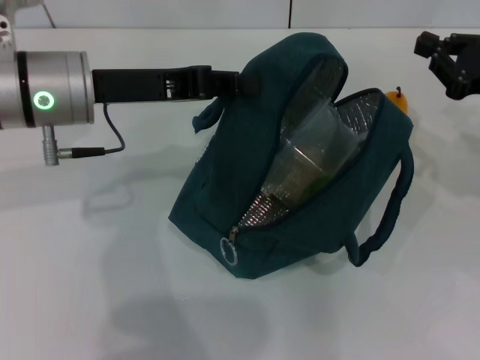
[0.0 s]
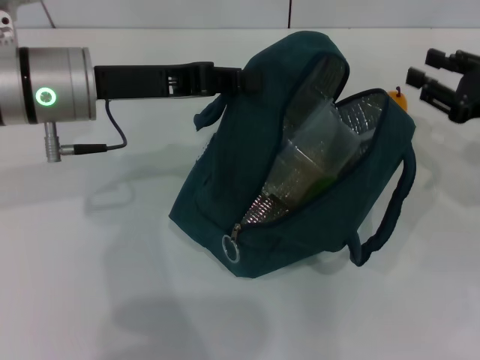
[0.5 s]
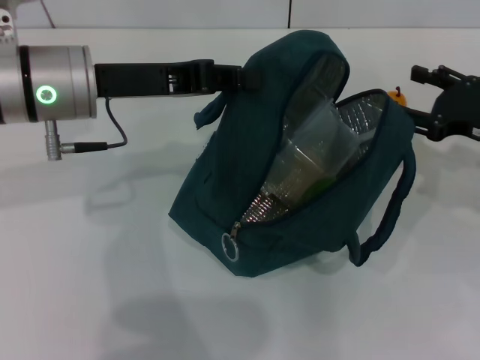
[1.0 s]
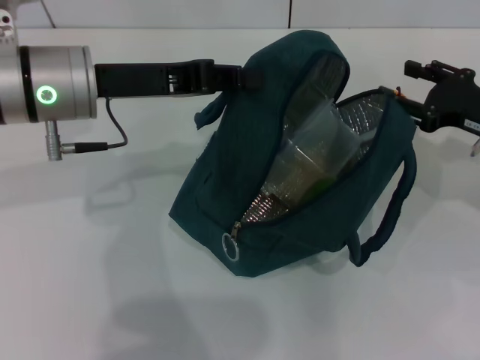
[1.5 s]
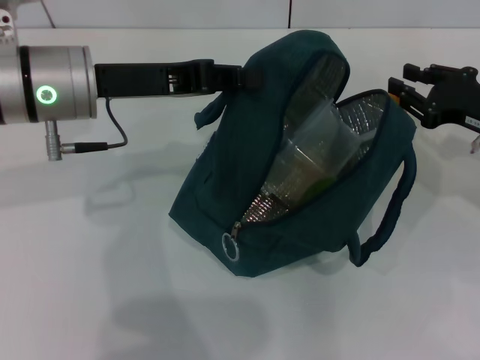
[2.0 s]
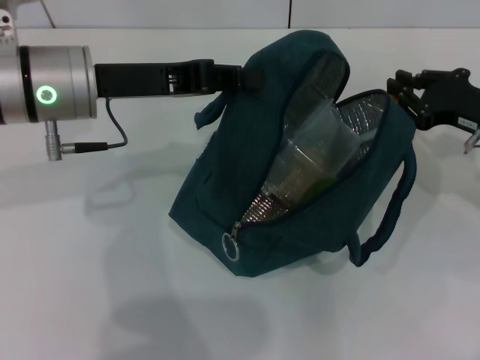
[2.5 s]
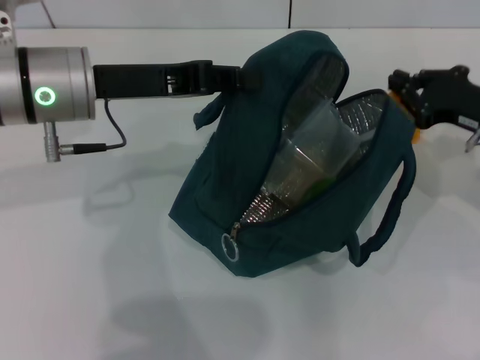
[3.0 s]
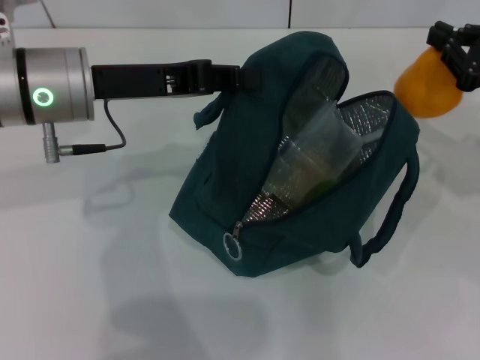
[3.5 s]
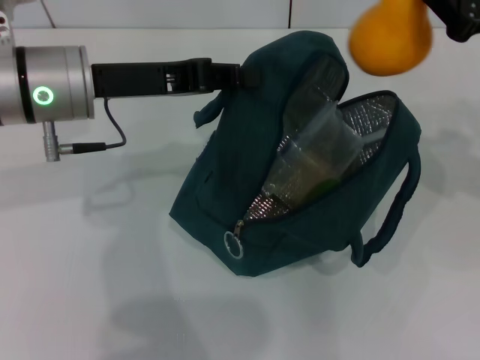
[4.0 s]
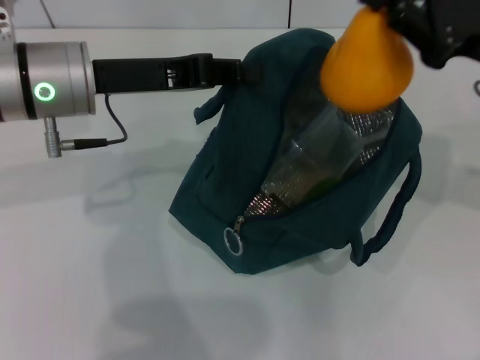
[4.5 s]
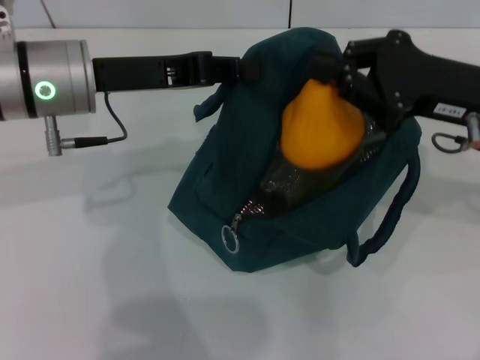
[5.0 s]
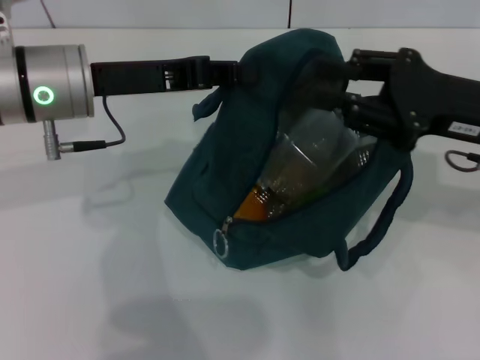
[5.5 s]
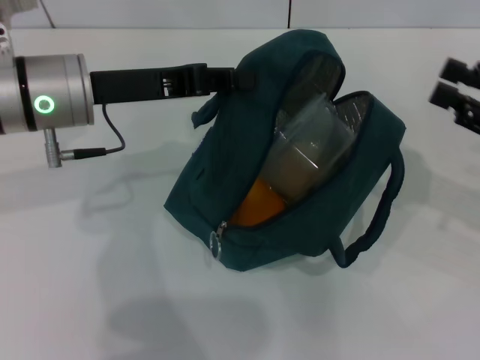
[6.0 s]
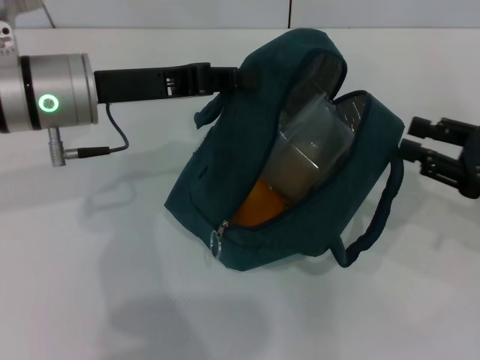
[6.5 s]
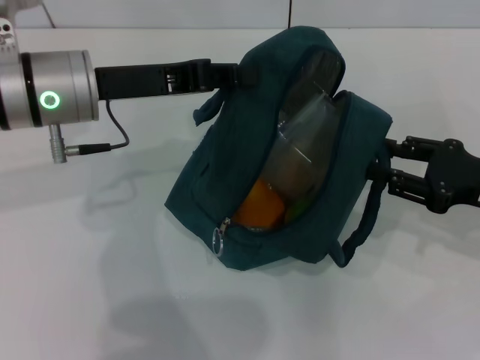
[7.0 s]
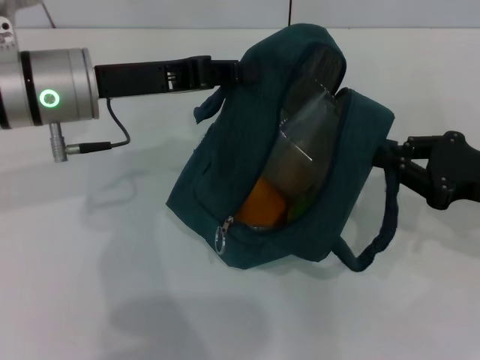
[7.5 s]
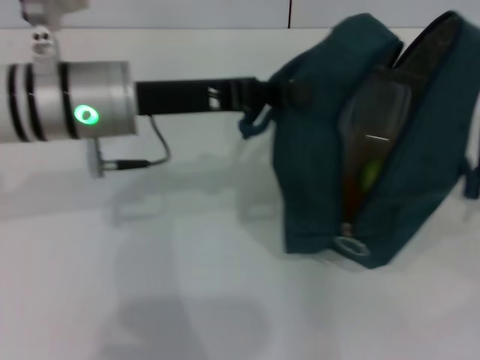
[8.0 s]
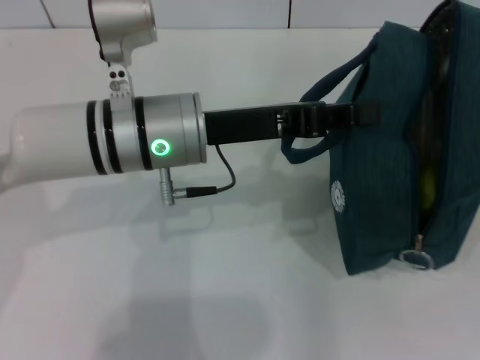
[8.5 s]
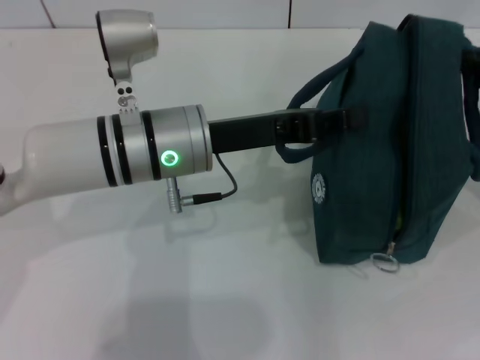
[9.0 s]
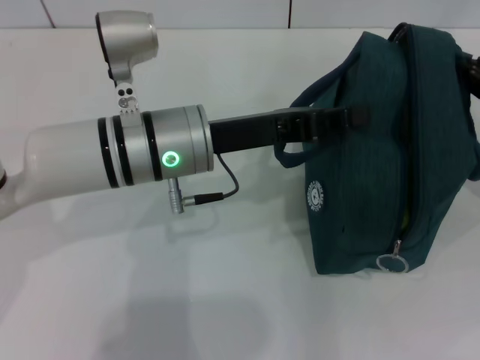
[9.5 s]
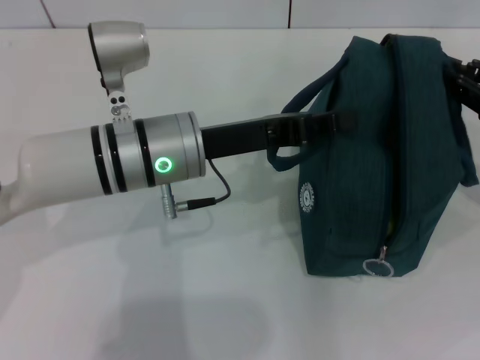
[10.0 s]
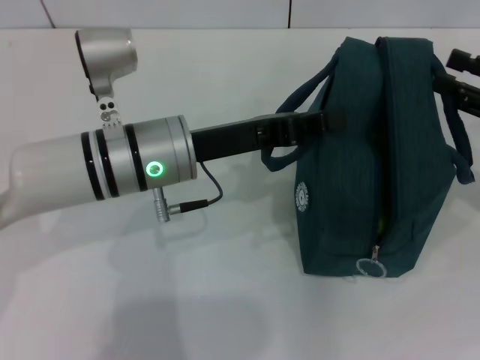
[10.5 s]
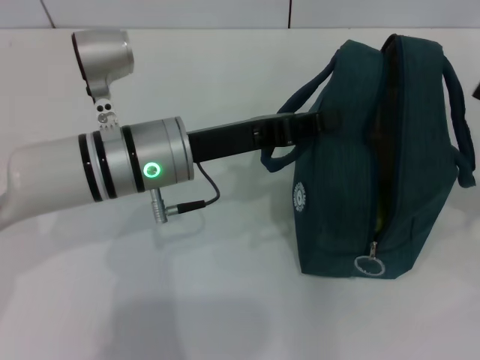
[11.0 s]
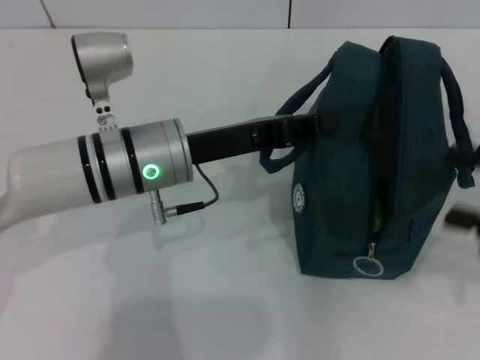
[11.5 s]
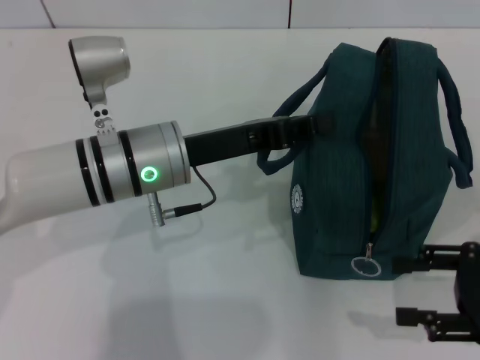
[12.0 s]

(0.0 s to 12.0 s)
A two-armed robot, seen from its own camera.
Step, 0.0 s - 2.5 s: Grab the pear with your right hand.
Step, 6.0 s - 10.0 s: Hold the lunch bag with your right hand.
0.0 s - 2.0 s: The right gripper opens its fingers.
2.0 s - 4.0 s: The right gripper travels upward by approximately 10 cm, and closes up.
4.0 s - 6.0 s: The right gripper is displaced downward and backward by about 10 cm, and opens its fingers.
6.0 s - 8.0 s: The right gripper closes up.
8.0 s - 10.0 s: The left gripper moves downward, about 5 cm.
10.0 s - 12.0 s: The right gripper moves backward, about 10 cm, and opens up.

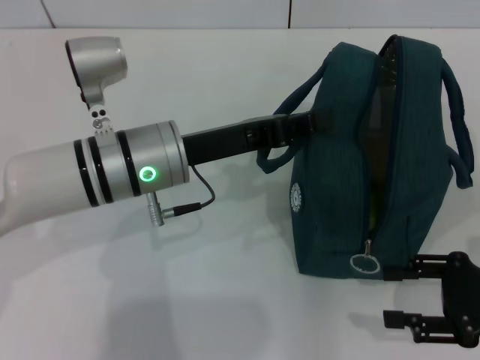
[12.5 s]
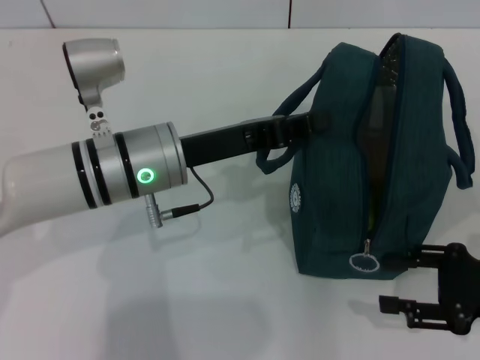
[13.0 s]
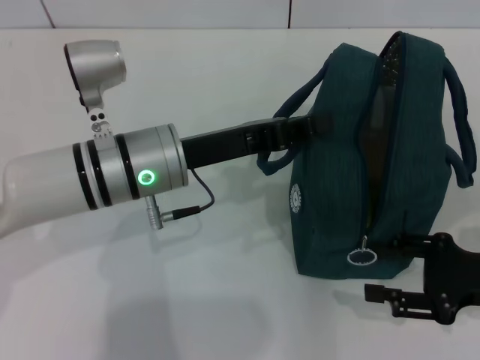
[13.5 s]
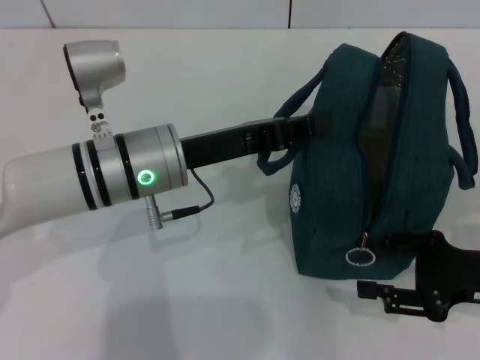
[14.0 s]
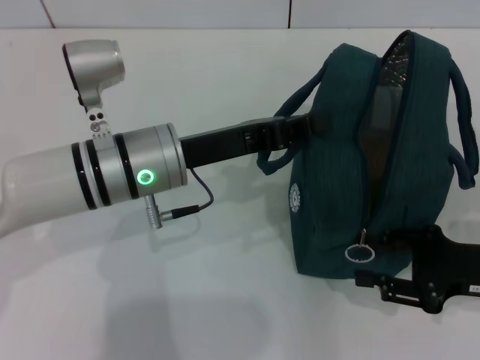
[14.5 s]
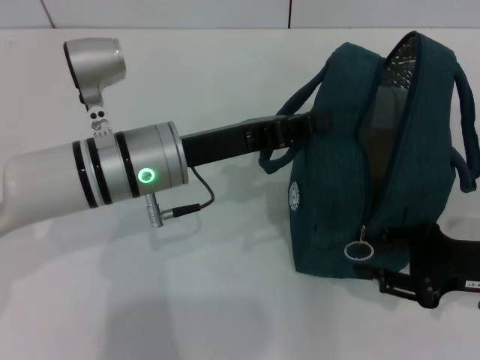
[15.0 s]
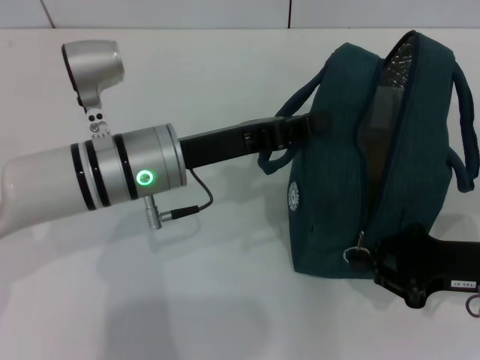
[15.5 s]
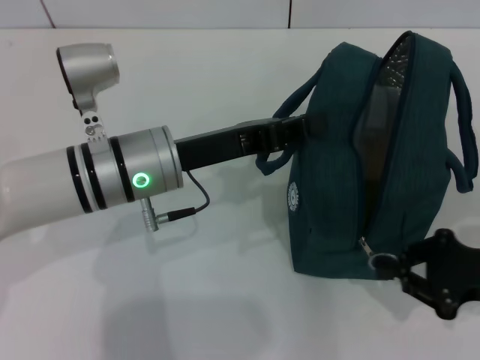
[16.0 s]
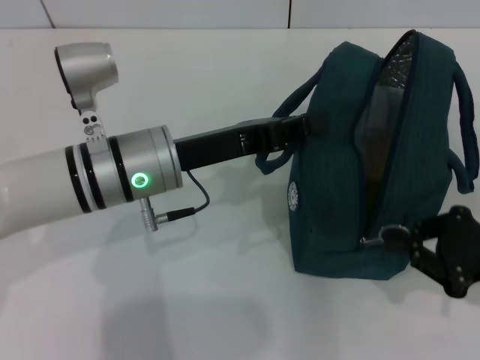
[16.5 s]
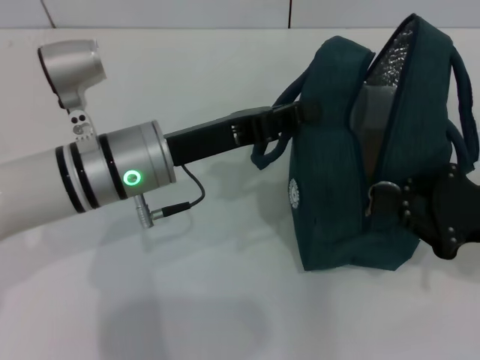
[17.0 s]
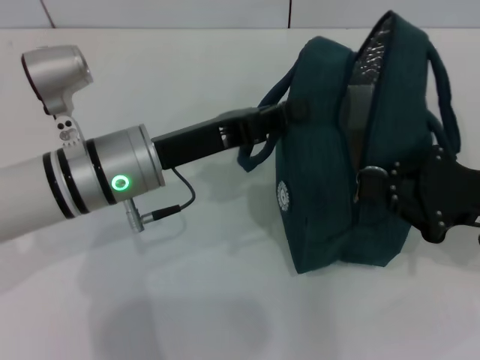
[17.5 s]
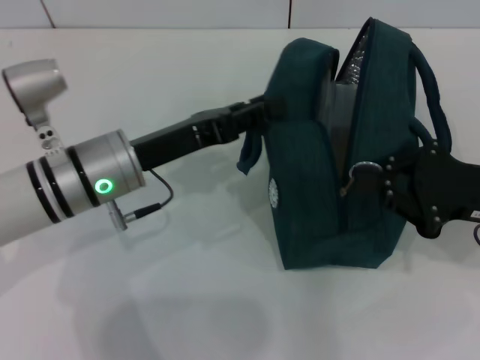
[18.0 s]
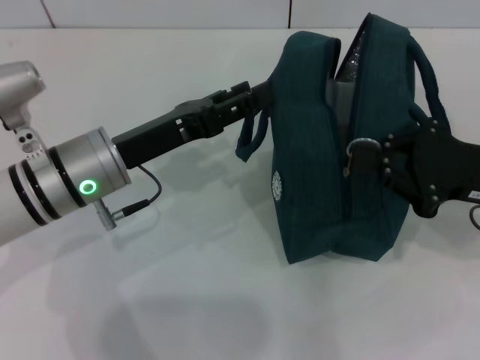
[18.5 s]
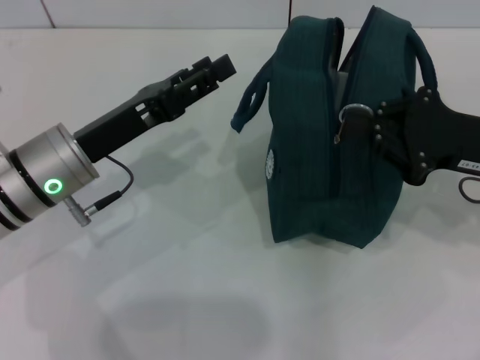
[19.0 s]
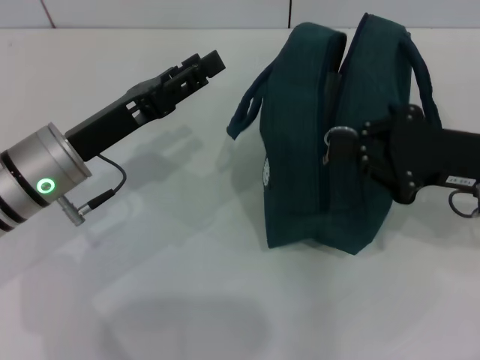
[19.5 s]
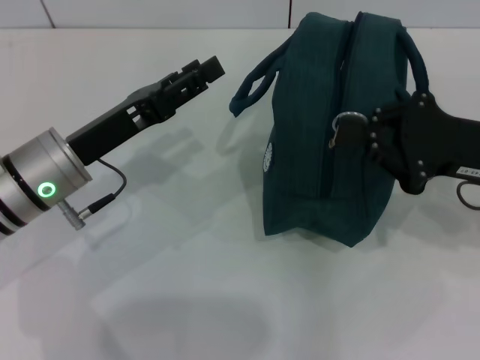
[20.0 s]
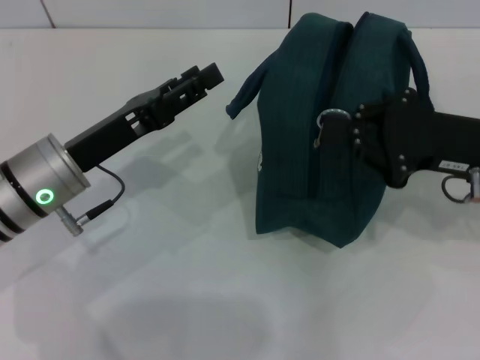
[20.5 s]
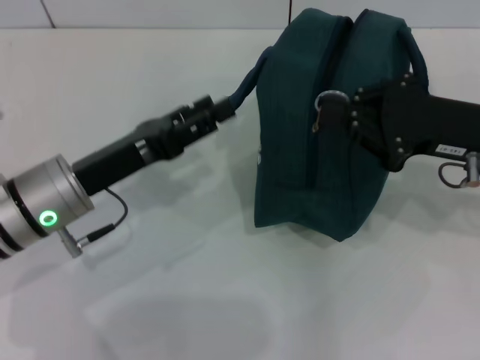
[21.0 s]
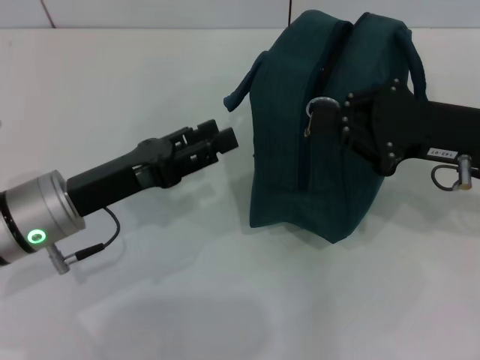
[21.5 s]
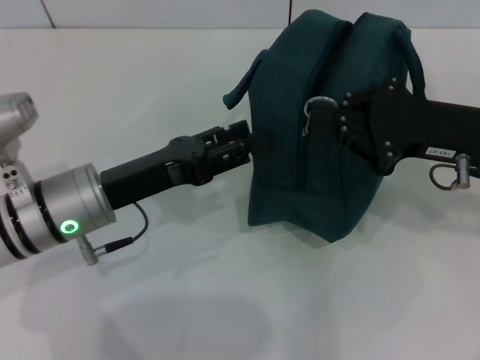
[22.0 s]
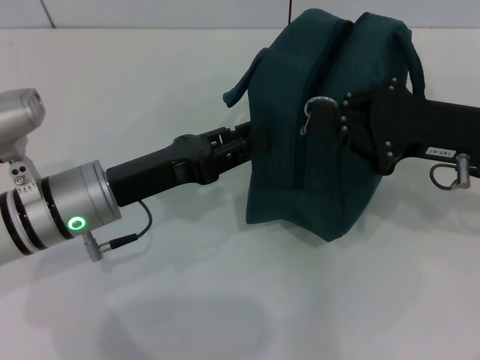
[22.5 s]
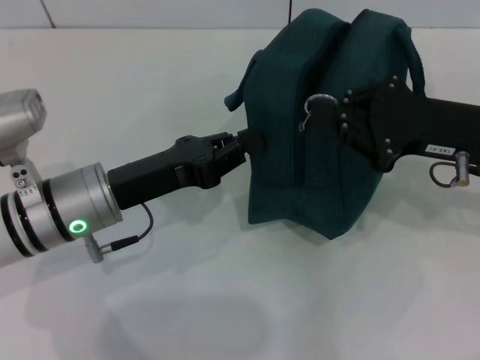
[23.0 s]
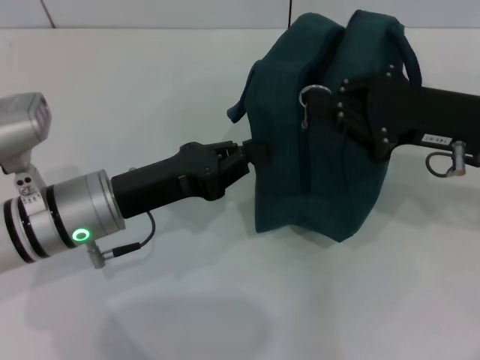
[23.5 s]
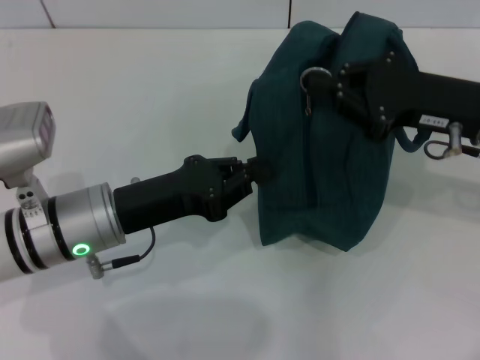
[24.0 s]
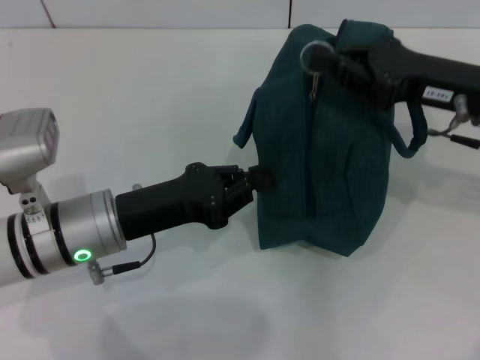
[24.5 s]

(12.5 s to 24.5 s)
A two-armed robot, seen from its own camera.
Step, 12.5 s - 20.5 s: Hold the lunch bag with your left hand.
12.5 s - 14.5 s: The grippers stay close to where they were, moving slightly.
14.5 s - 16.5 s: The right gripper closes up.
16.5 s - 18.5 s: The right gripper shifts roughly 5 cm forward. The left gripper opens.
20.5 s - 22.5 s: The grippers move only a little.
22.5 s - 24.5 s: The left gripper closes.

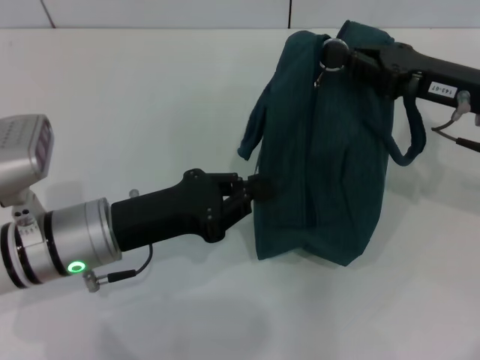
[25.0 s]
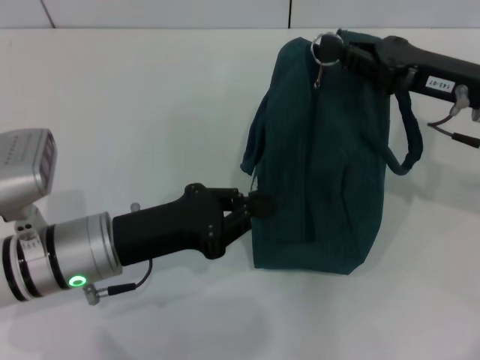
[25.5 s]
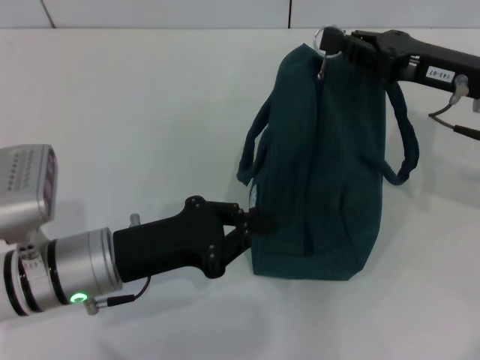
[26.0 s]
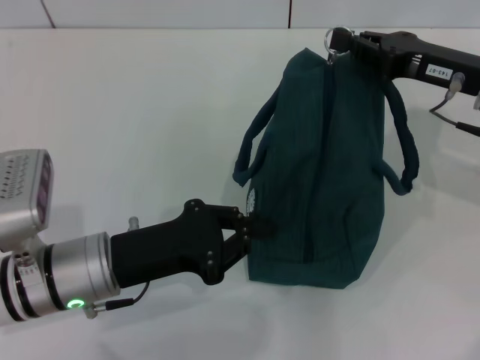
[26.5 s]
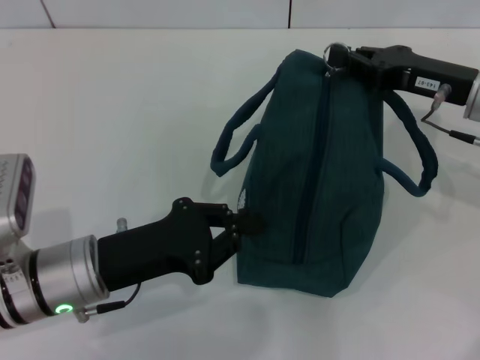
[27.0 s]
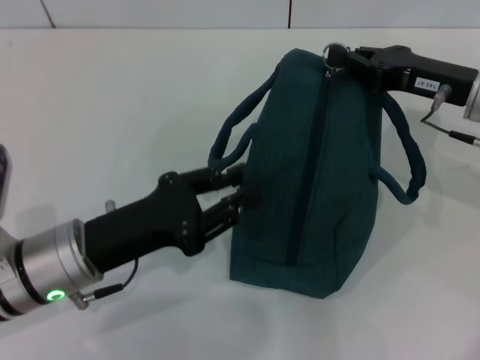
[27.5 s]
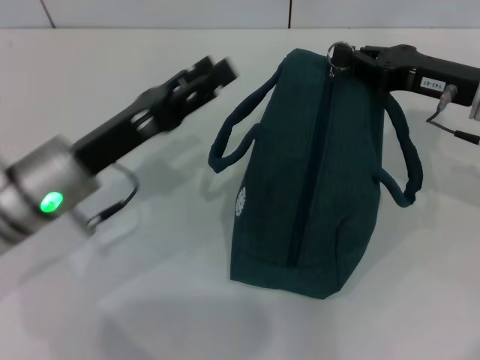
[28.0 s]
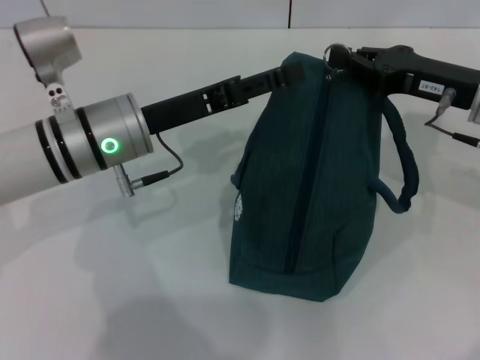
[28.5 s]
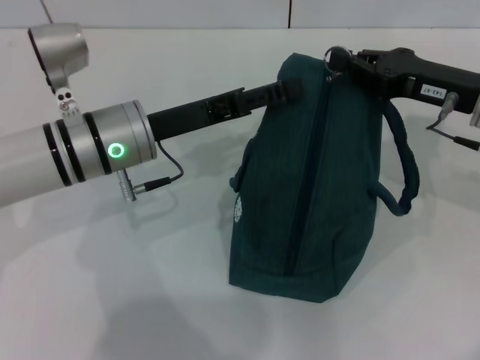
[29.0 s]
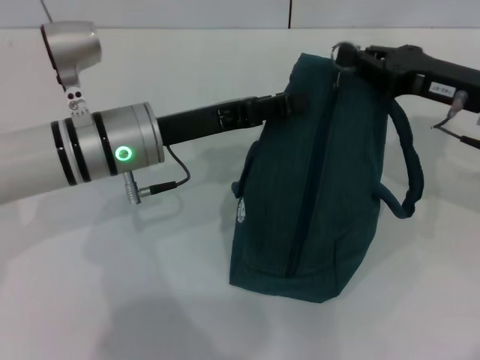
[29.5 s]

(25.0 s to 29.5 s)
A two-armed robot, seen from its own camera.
27.0 s - 29.5 s: The left gripper travels forward and upward by roughly 10 cm, and opens.
